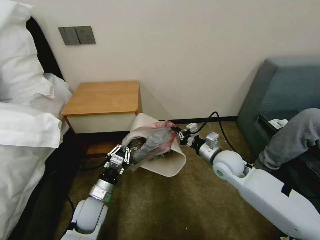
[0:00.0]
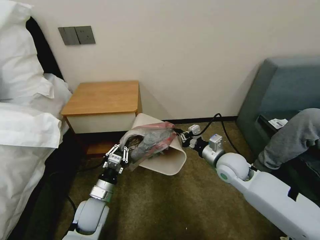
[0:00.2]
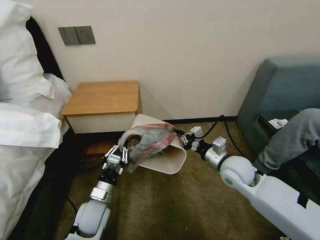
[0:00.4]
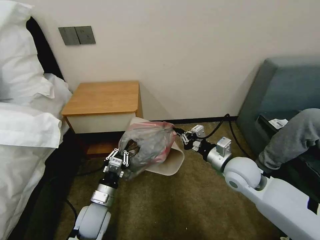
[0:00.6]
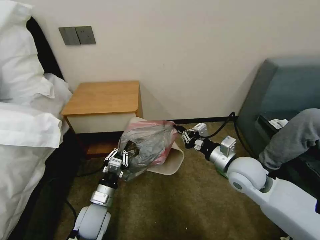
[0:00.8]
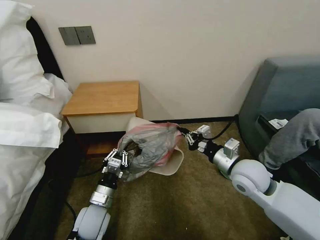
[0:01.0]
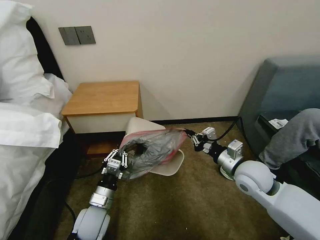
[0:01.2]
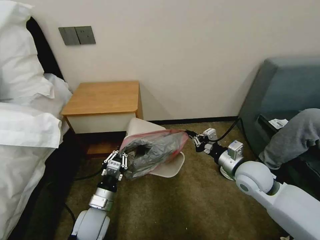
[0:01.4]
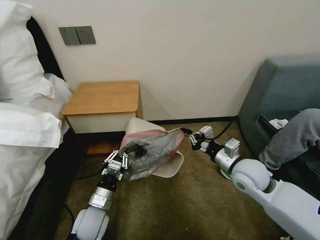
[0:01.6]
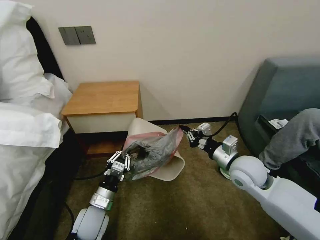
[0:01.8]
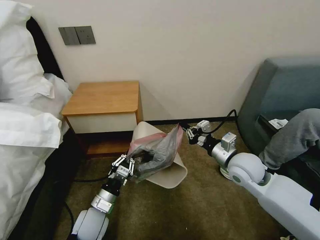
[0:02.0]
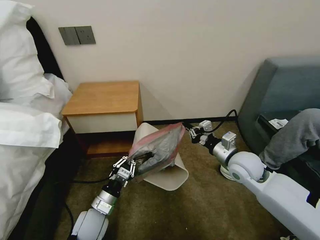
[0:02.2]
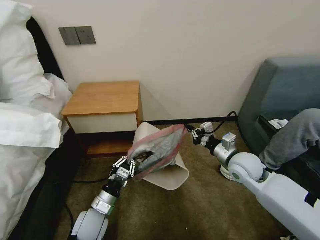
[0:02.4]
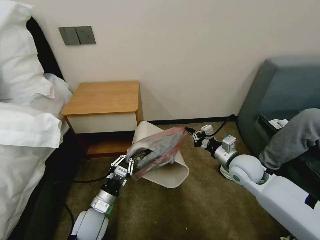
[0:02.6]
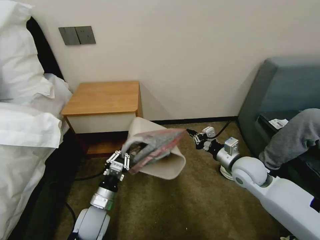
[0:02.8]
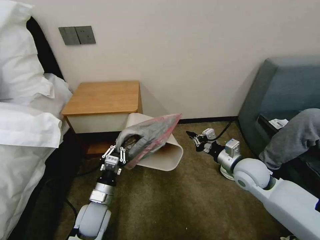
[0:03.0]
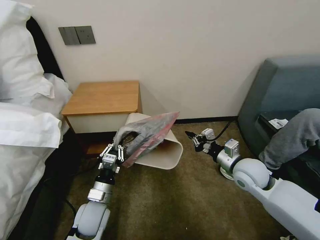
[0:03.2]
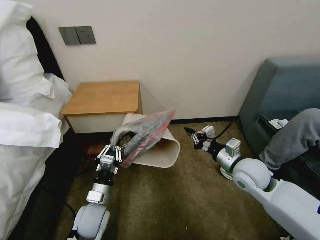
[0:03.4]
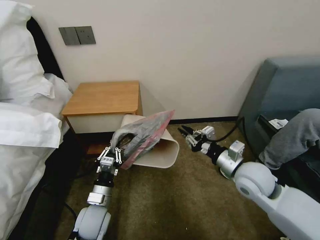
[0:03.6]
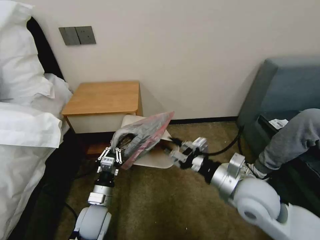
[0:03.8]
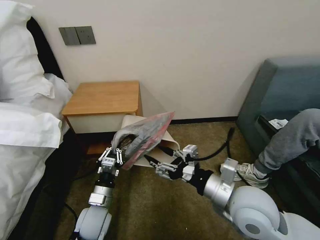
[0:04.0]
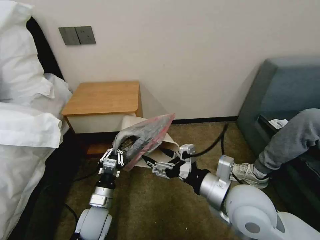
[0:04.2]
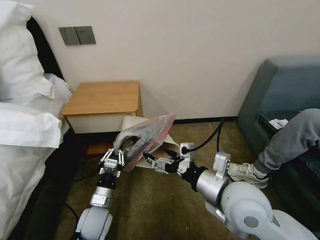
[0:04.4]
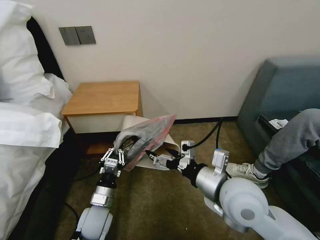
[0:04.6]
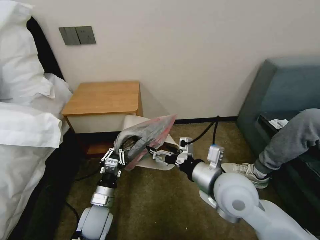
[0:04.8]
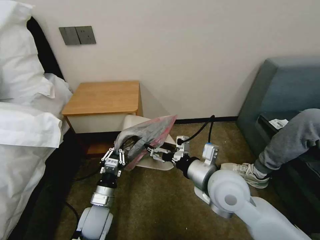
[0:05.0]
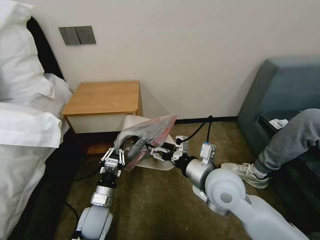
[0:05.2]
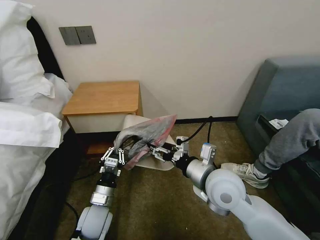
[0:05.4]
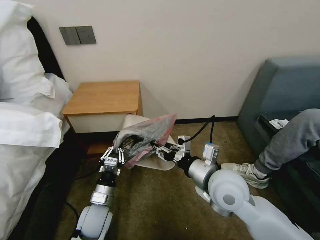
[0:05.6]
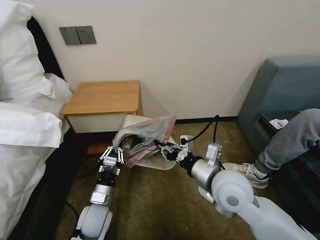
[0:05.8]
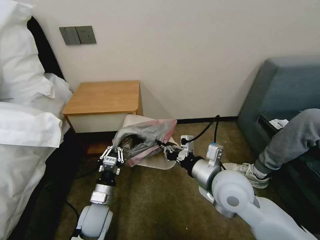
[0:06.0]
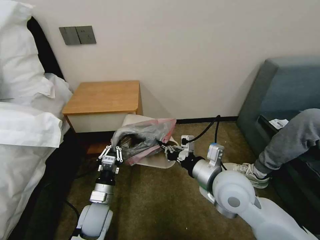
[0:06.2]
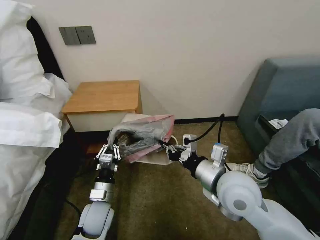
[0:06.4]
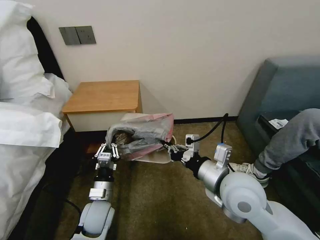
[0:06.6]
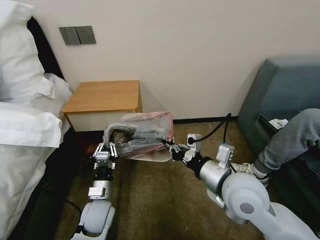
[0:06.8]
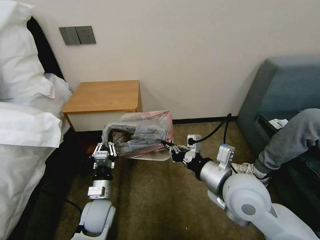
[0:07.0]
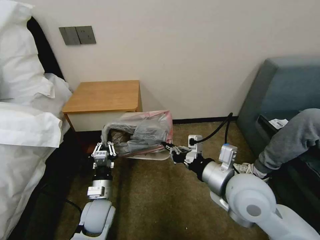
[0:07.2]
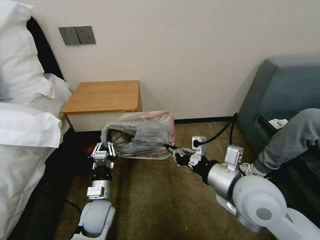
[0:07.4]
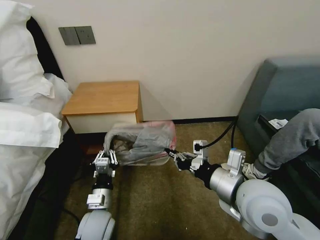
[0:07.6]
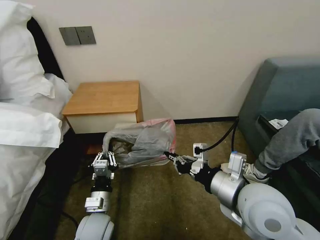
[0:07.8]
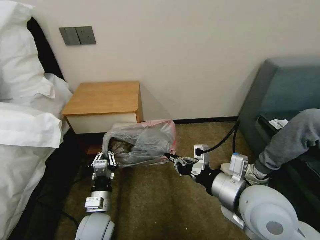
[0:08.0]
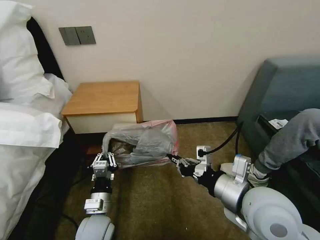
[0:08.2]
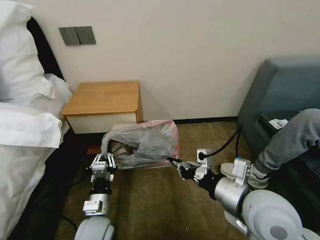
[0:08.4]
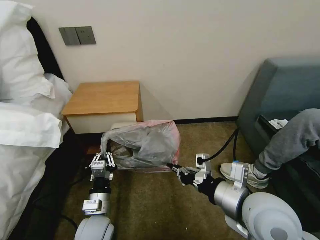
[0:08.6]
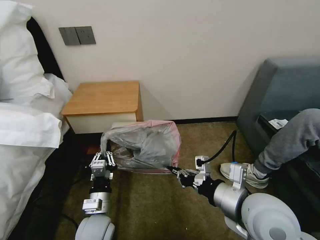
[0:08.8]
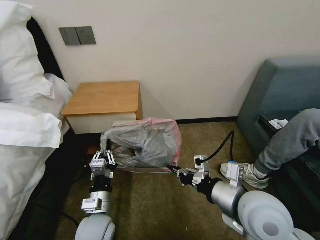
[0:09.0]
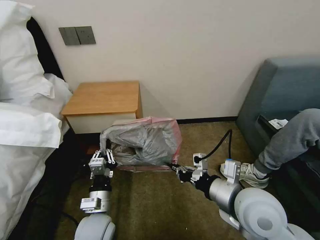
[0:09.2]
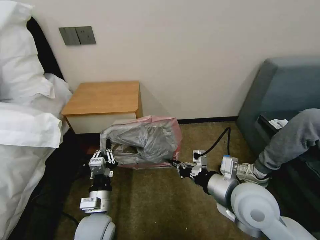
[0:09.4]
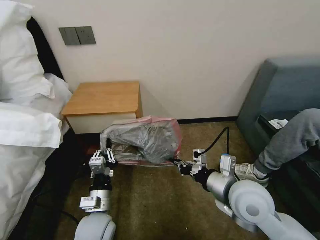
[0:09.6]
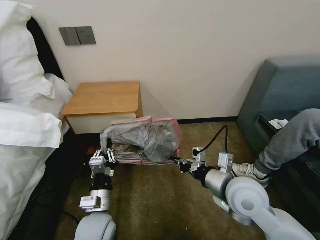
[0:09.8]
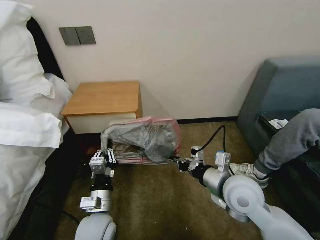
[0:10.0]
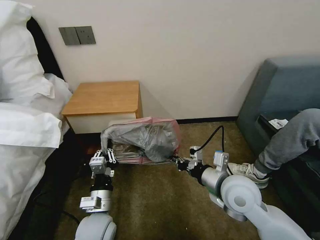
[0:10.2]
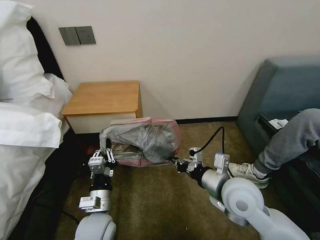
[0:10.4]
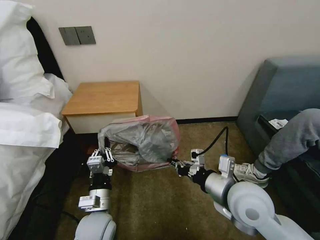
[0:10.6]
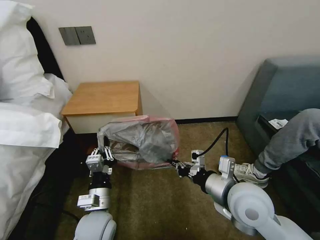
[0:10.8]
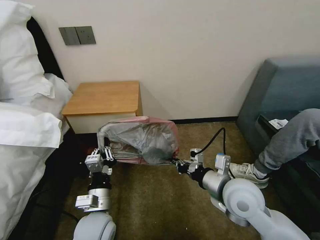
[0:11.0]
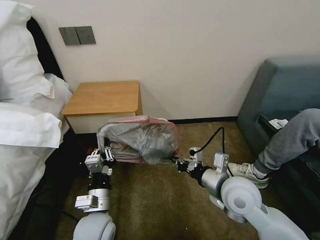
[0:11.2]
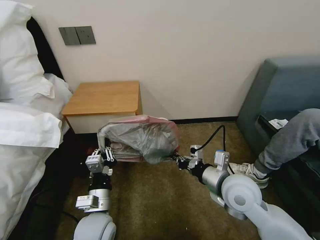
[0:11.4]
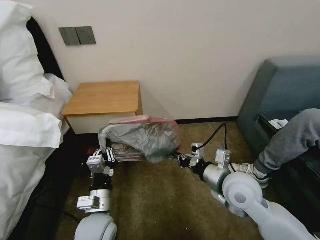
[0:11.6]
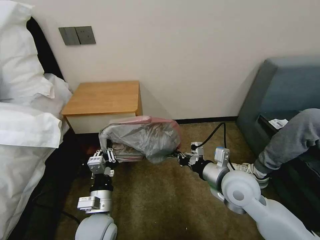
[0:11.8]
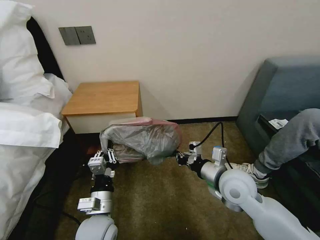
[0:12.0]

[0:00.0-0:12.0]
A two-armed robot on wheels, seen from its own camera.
Task of the whole recording: Pick up the garbage bag from the table and place it over the trash can.
0:00.0 to 0:01.6: The right gripper heads backward, covering roughly 5 cm.
0:01.6 to 0:03.0: There are only small adjustments of the grippers.
0:03.0 to 0:04.4: The right gripper moves backward, to the left and upward, roughly 20 cm, and opens.
0:04.4 to 0:06.0: The right gripper shifts by approximately 5 cm, and closes.
0:06.0 to 0:07.6: The right gripper changes place by roughly 5 cm.
0:07.6 to 0:09.0: The grippers make only small movements.
0:09.0 to 0:10.4: The right gripper ends up approximately 5 cm from where it was.
0:10.4 to 0:12.0: The grippers make only small movements.

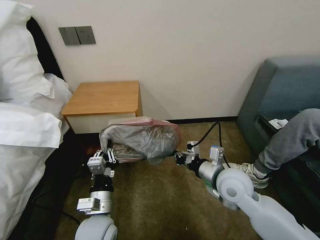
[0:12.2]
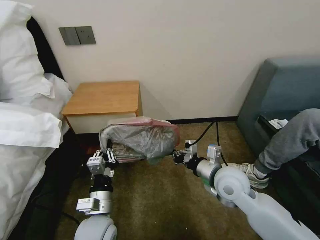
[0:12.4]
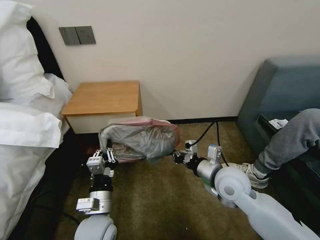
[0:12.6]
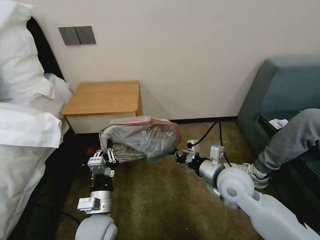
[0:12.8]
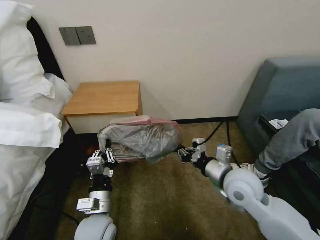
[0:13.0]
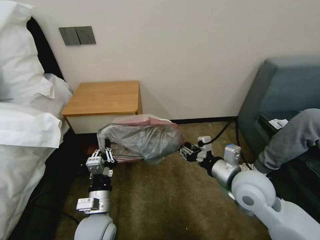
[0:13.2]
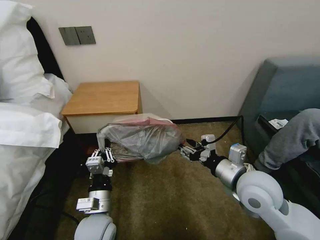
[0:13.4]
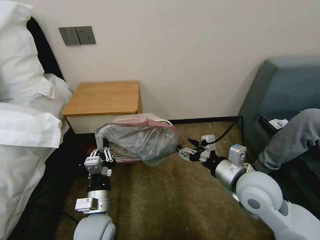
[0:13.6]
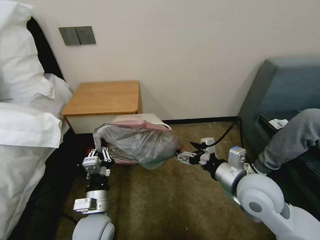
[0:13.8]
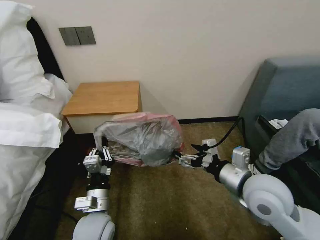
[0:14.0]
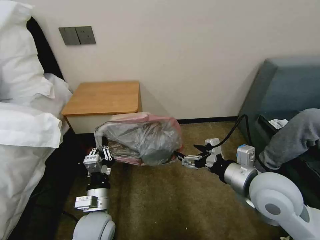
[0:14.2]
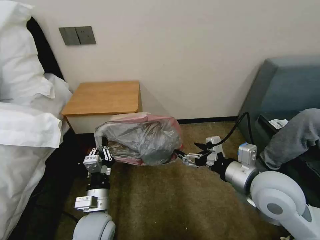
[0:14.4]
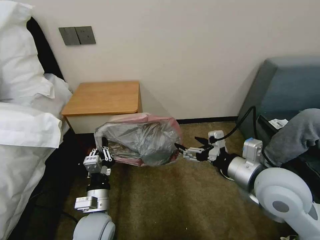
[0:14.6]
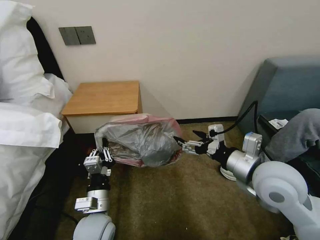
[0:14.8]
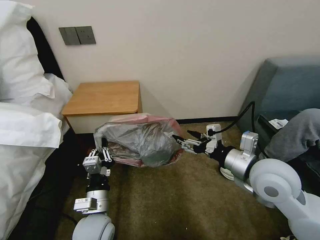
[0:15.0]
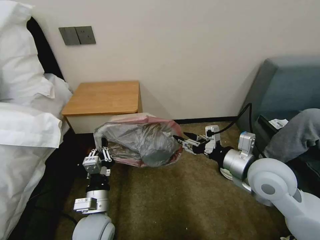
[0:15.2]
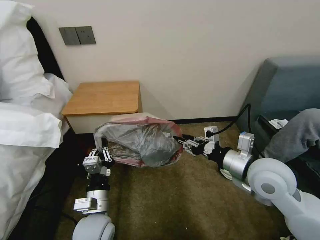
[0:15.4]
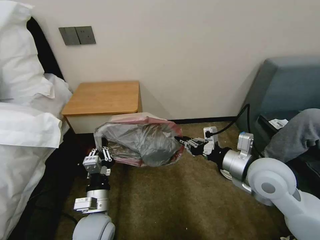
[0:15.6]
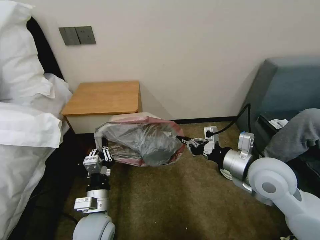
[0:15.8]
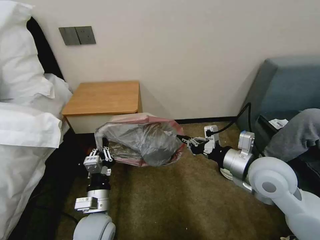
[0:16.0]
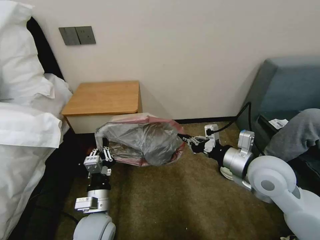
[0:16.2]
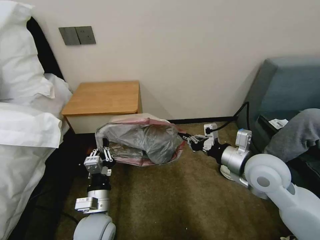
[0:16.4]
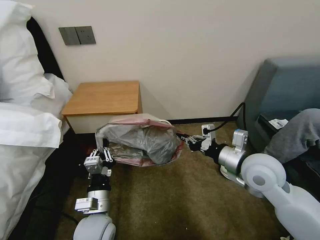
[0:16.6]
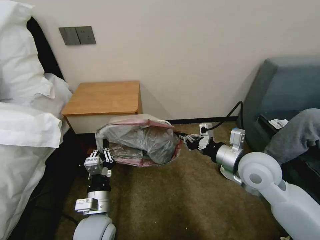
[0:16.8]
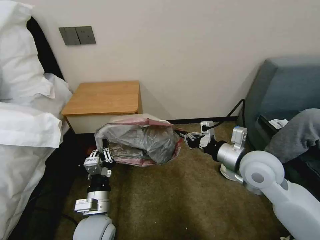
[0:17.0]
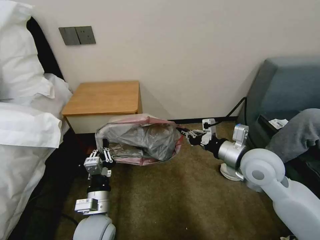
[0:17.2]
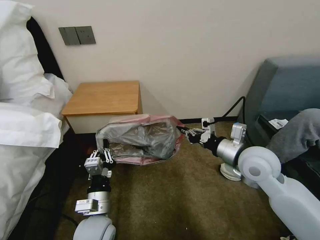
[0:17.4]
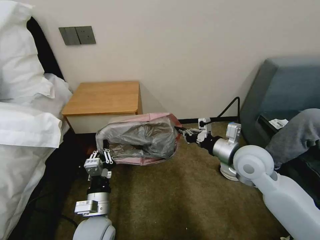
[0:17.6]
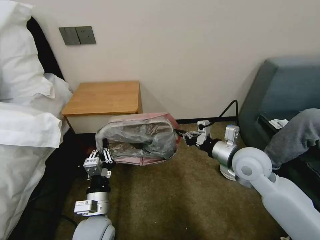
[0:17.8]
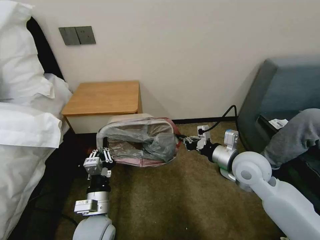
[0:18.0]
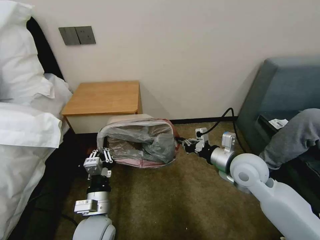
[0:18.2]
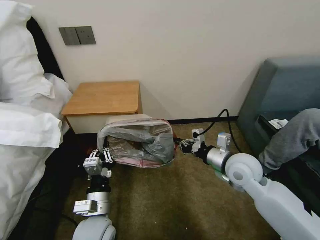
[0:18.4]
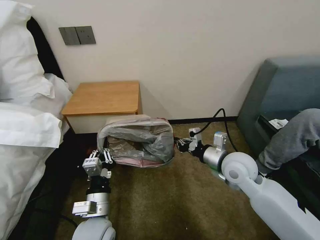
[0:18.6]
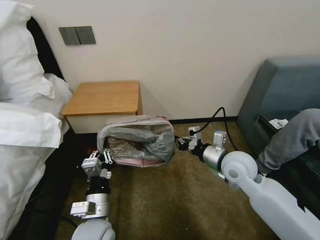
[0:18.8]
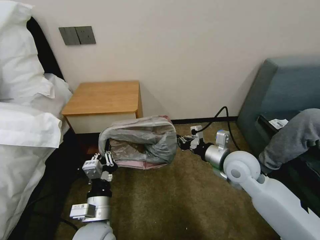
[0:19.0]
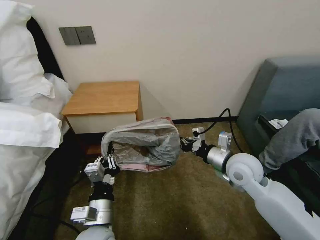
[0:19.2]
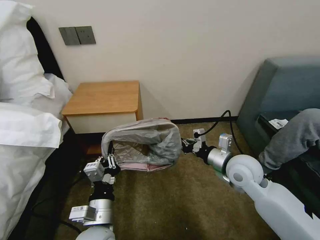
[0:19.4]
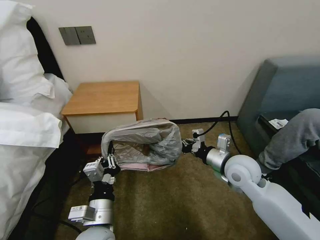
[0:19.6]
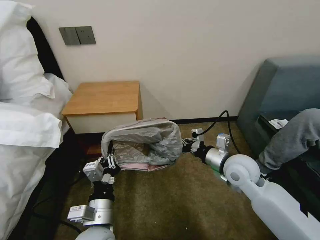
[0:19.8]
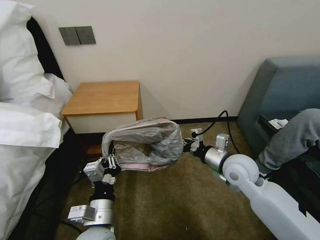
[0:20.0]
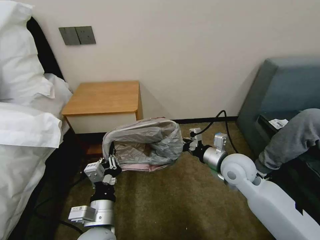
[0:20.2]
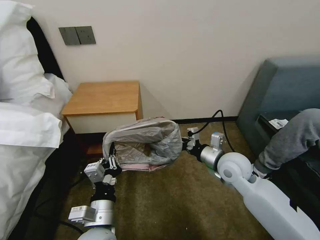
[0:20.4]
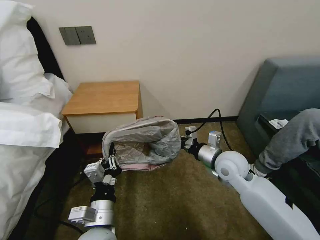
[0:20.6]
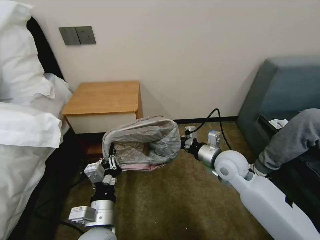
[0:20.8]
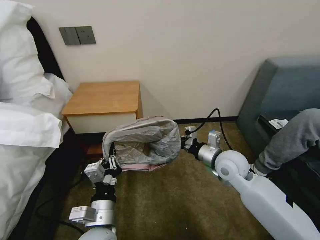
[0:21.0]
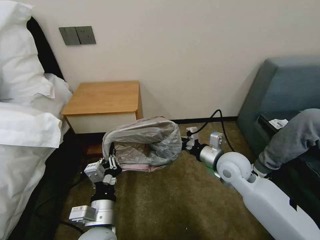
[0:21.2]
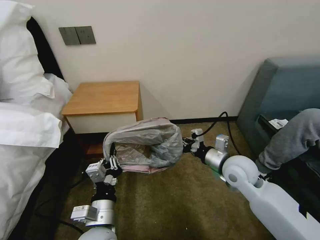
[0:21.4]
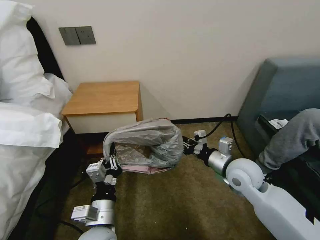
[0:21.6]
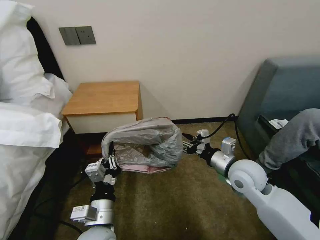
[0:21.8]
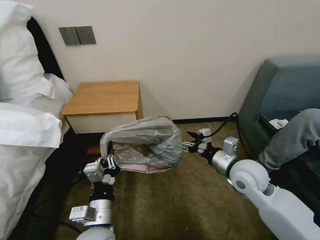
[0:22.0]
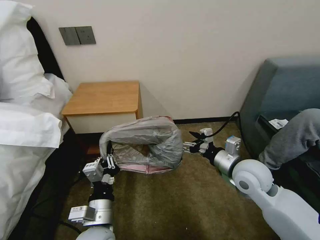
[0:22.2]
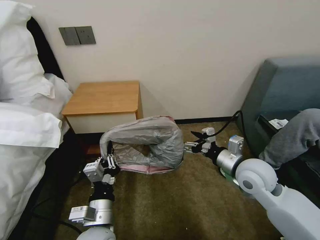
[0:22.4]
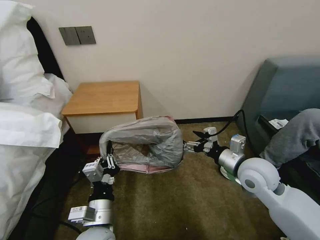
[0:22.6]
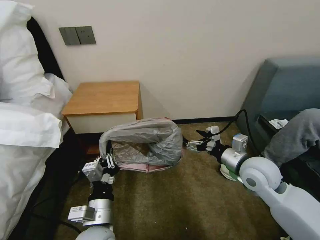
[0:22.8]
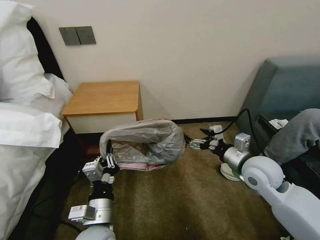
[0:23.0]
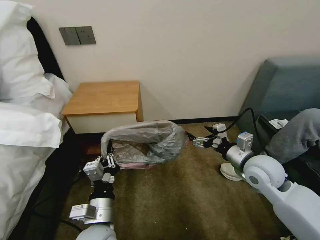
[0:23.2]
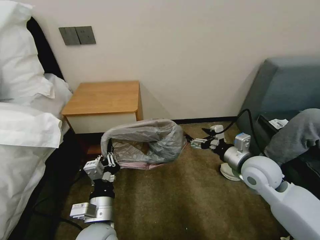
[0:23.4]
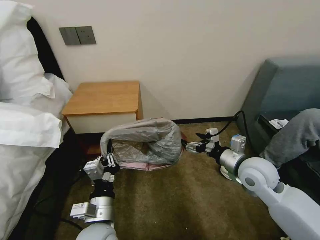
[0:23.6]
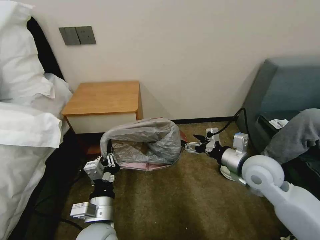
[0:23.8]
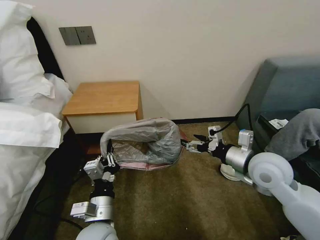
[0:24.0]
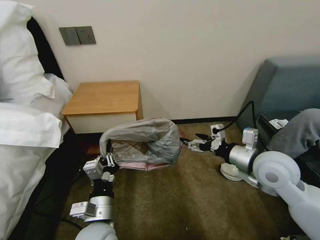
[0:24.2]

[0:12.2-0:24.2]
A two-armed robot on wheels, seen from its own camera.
Task of the whole recording: Pick up the garbage bag from the table and place it over the trash can.
0:12.2 to 0:13.8: The right gripper changes place by approximately 5 cm, and opens up.
0:13.8 to 0:15.2: The right gripper closes its fingers.
0:15.2 to 0:16.6: The right gripper closes its fingers.
0:16.6 to 0:18.2: There are only small adjustments of the grippers.
0:18.2 to 0:21.2: The grippers make only small movements.
0:21.2 to 0:22.6: The right gripper ends up some 5 cm from where it was, and opens up.
0:22.6 to 0:24.2: The right gripper moves about 5 cm.
